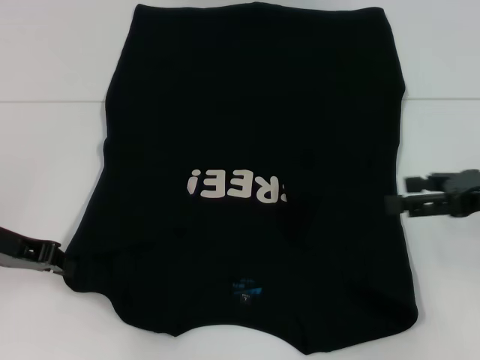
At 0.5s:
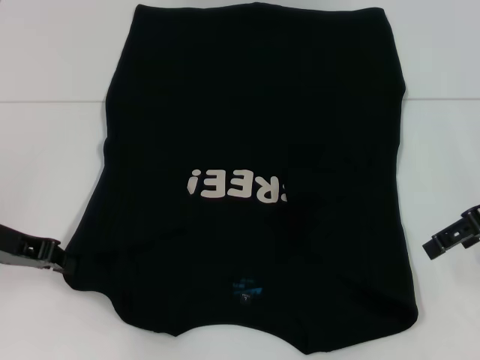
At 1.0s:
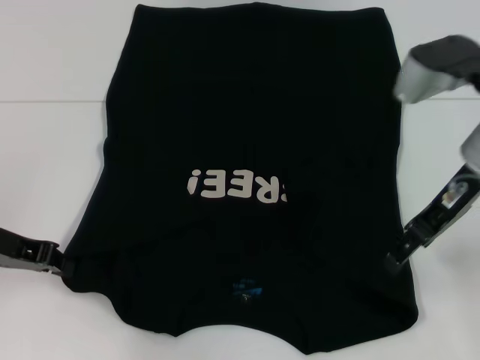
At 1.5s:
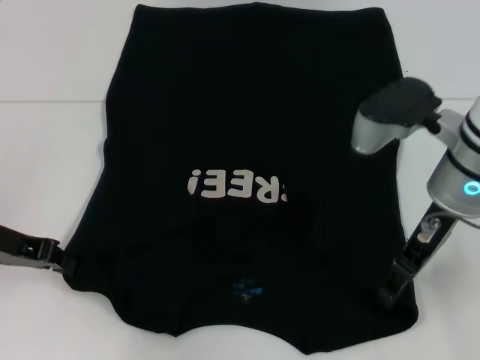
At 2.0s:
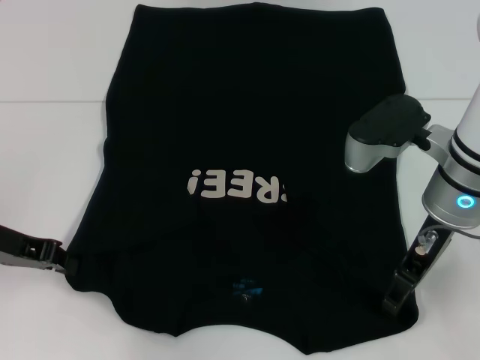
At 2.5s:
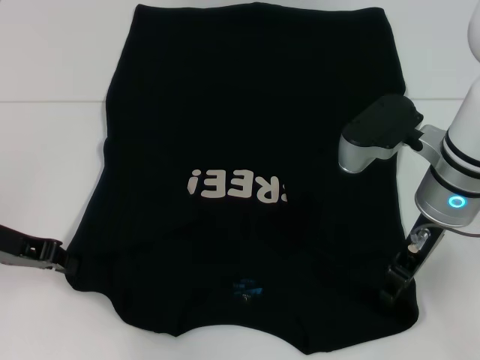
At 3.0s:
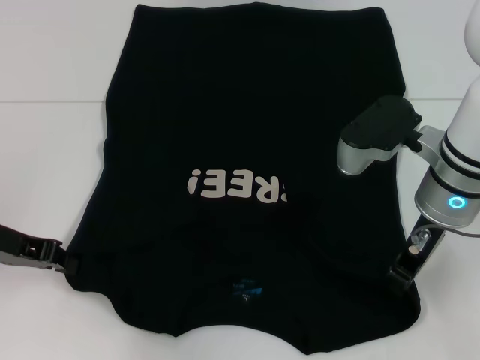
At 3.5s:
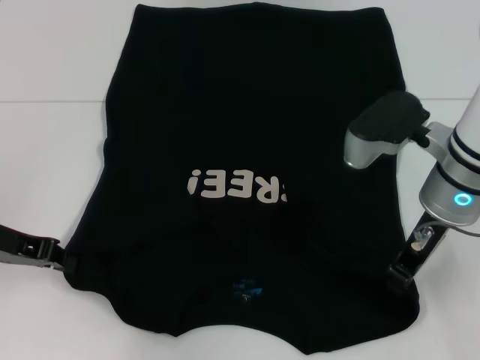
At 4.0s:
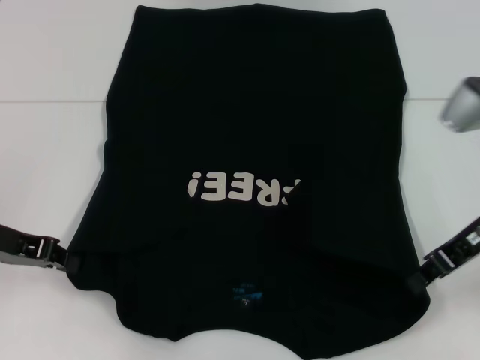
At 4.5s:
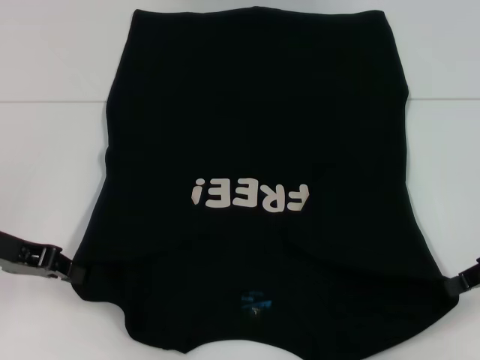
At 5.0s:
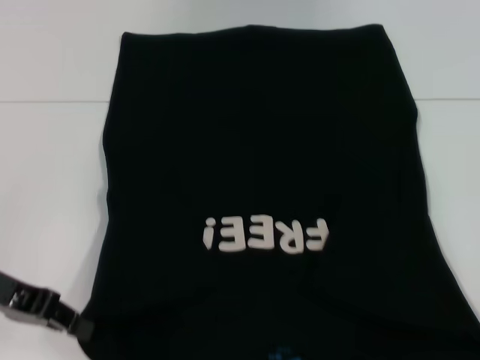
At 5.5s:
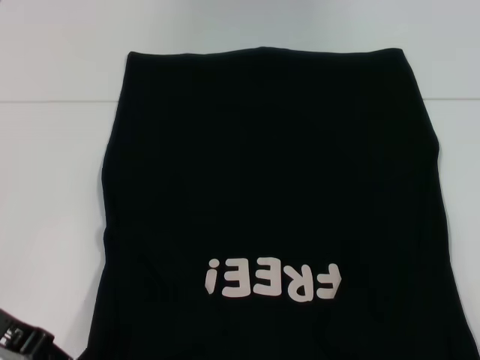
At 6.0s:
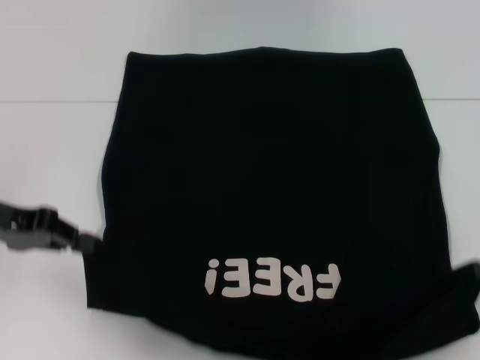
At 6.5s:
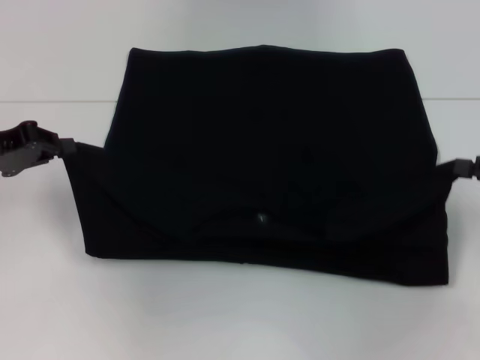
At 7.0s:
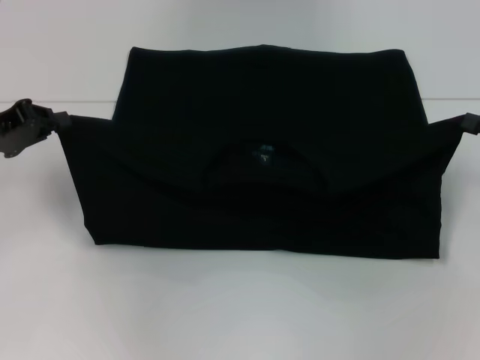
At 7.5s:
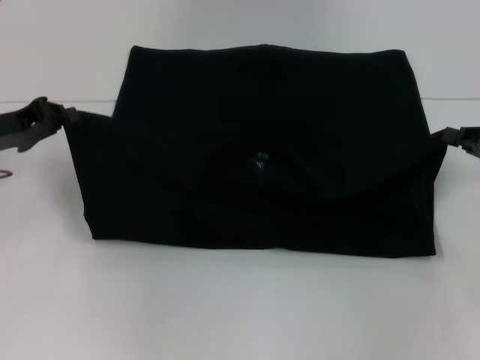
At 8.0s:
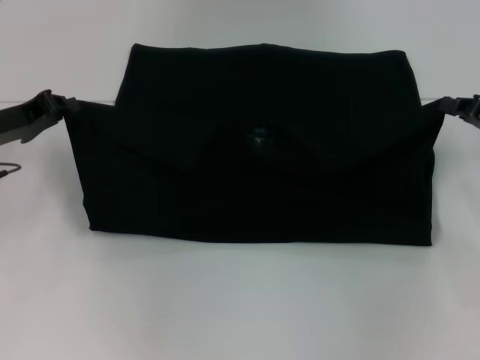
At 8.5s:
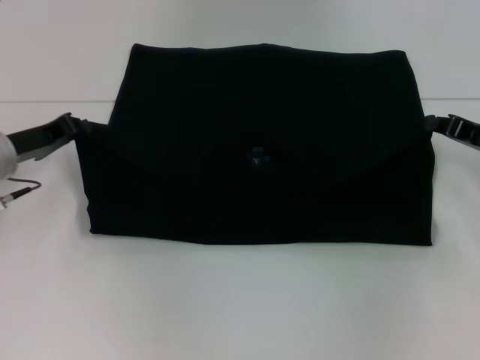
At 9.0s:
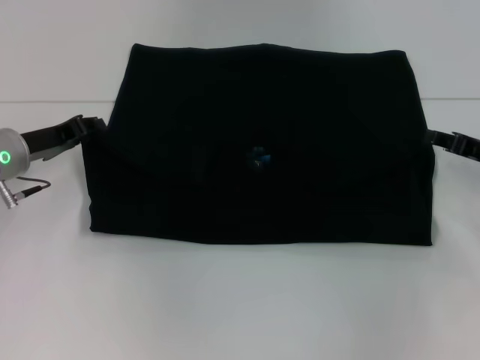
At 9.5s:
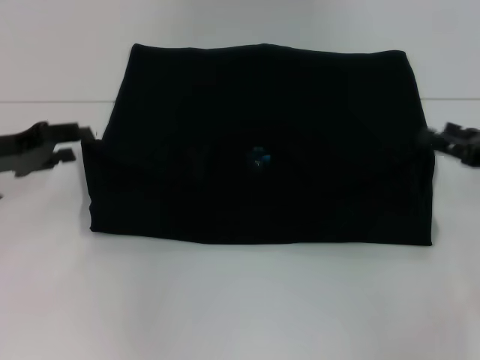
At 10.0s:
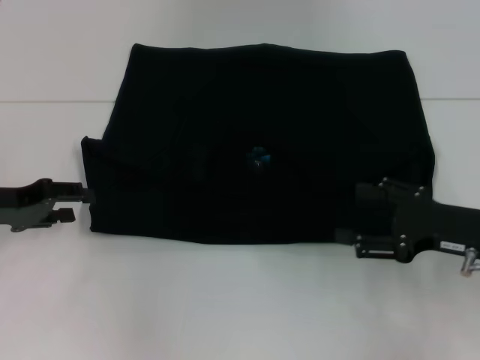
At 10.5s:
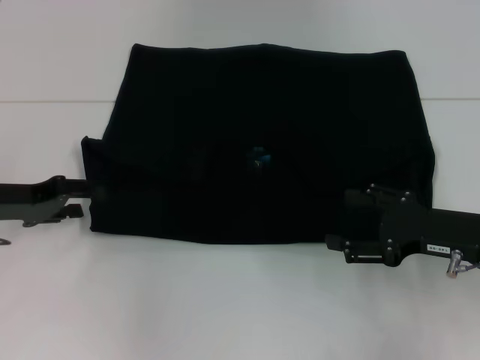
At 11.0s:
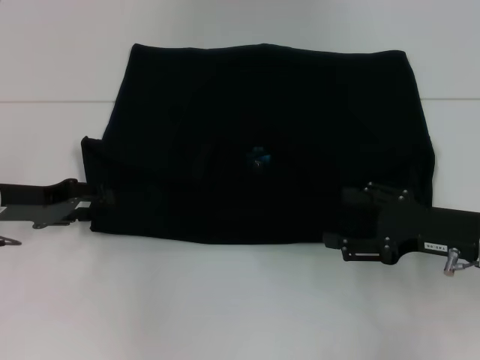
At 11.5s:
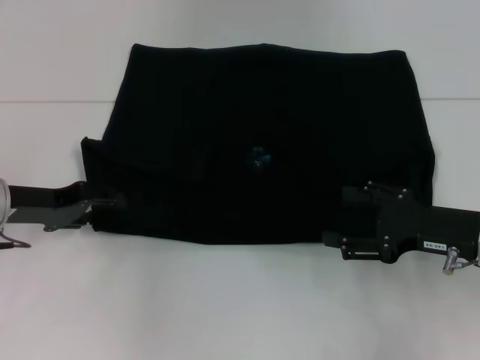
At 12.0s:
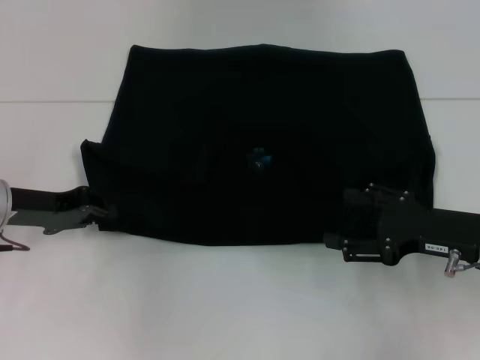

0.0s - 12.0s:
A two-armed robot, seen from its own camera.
Step, 0.0s - 4.0s: Grab the bottom right corner with your right hand.
Step, 4.5s - 9.0s: Fold the clothes with your left hand.
Step, 4.5s - 9.0s: Fold the clothes with your right hand.
0.0s - 2.0s: The right gripper goes roughly 15 cm to the left.
2.0s - 4.0s: The right gripper travels to the right by approximately 10 cm, and closes its fingers.
4.0s - 6.0s: The right gripper goes about 15 cm to the right.
6.0s - 8.0s: The two grippers go approximately 5 cm forward.
8.0s - 10.0s: The right gripper heads backward and to the left, covering about 10 cm, and opens its fingers; the left gripper shifts by some 5 cm, and opens up.
10.0s - 12.0s: The grippers stay close to where they were, moving slightly.

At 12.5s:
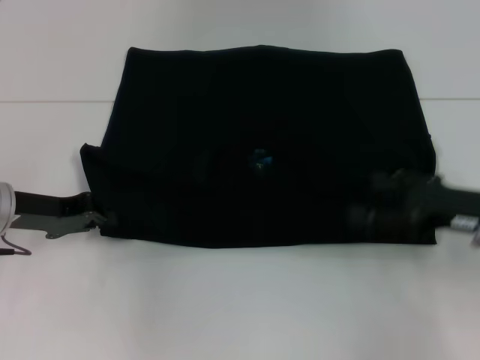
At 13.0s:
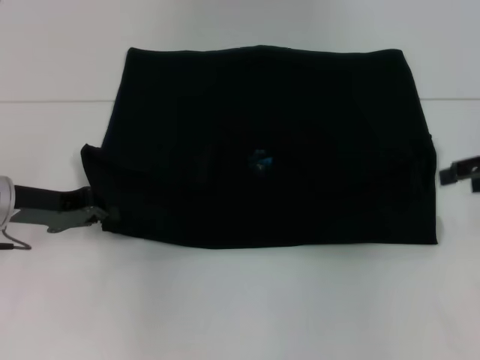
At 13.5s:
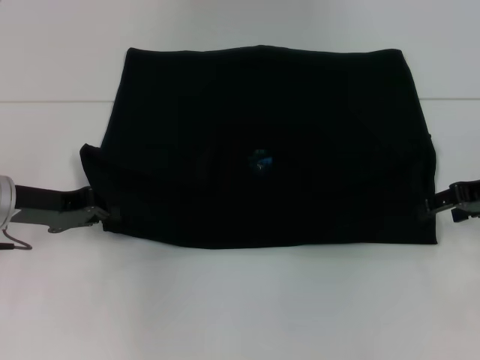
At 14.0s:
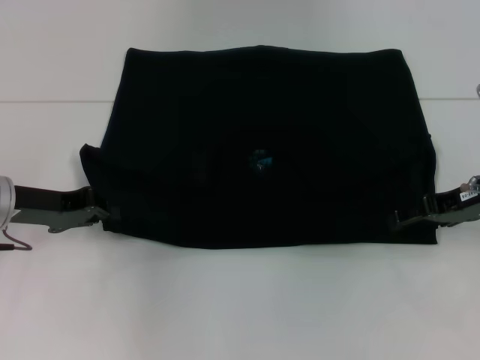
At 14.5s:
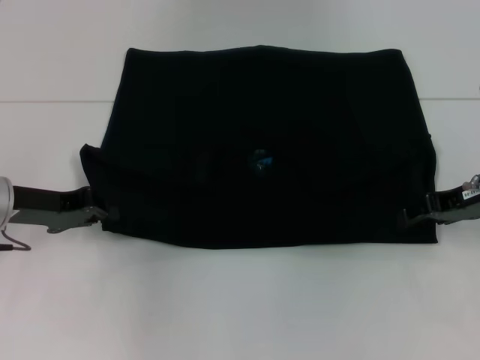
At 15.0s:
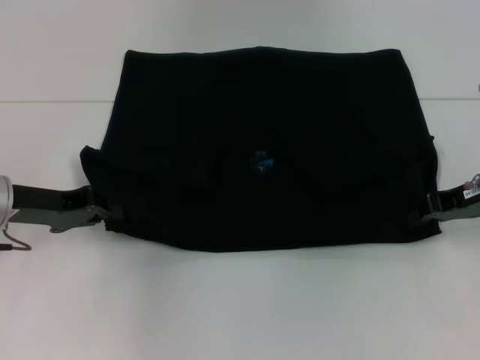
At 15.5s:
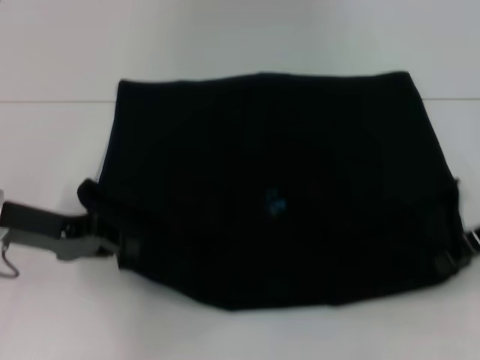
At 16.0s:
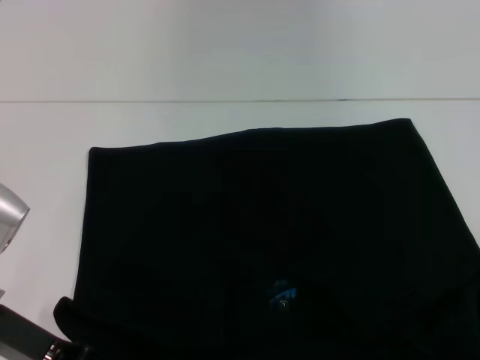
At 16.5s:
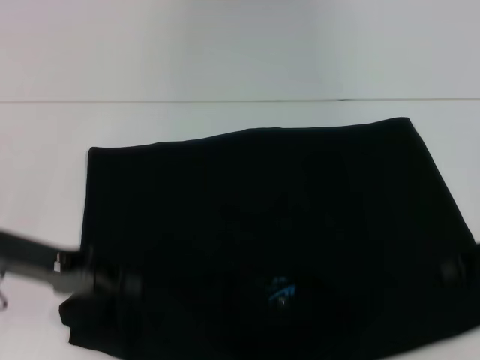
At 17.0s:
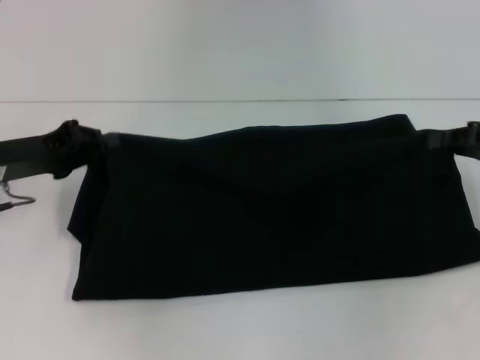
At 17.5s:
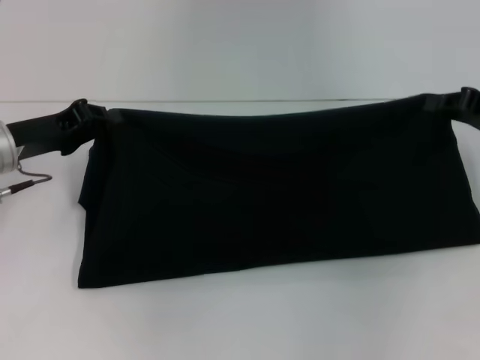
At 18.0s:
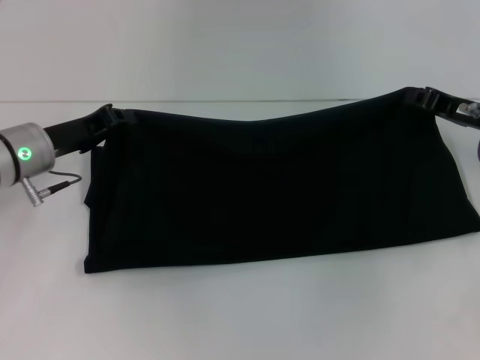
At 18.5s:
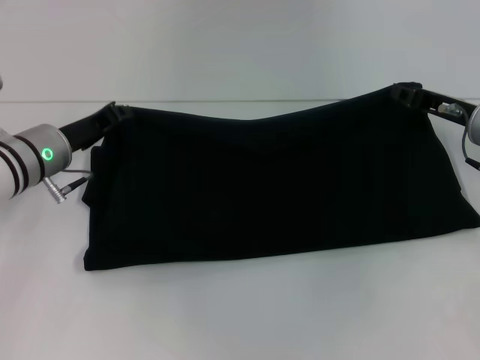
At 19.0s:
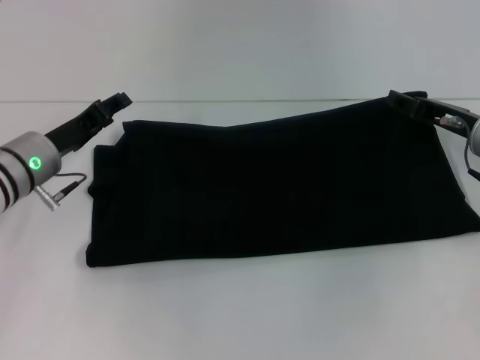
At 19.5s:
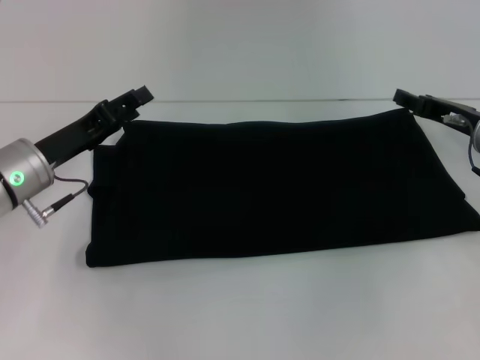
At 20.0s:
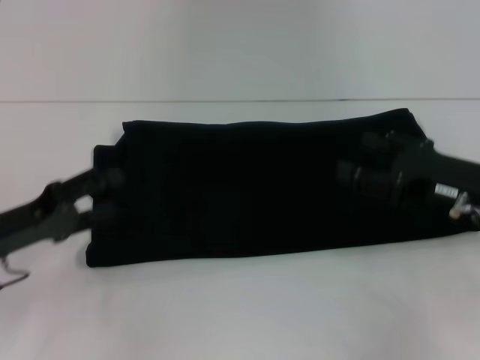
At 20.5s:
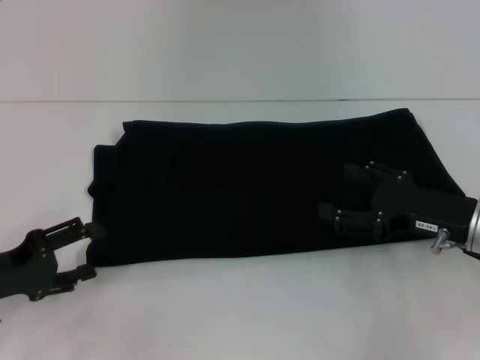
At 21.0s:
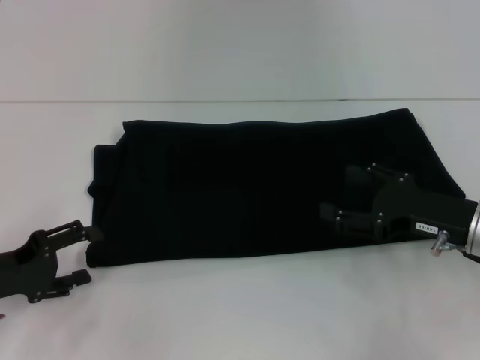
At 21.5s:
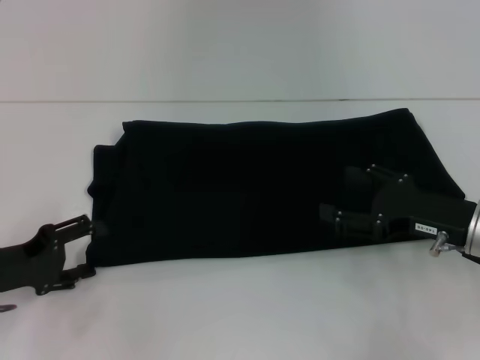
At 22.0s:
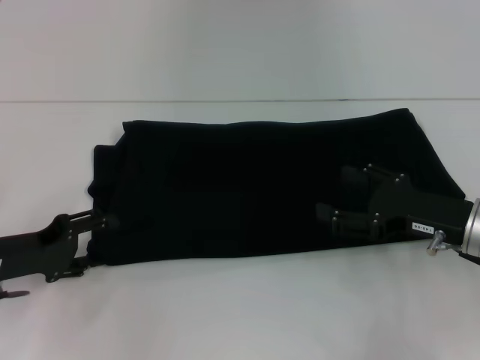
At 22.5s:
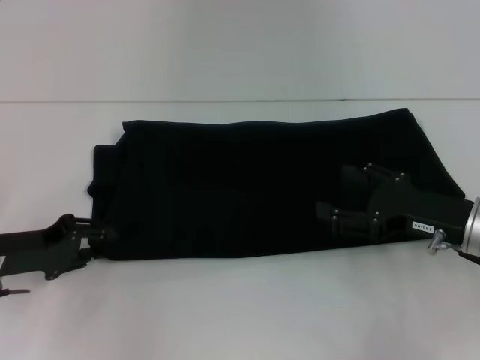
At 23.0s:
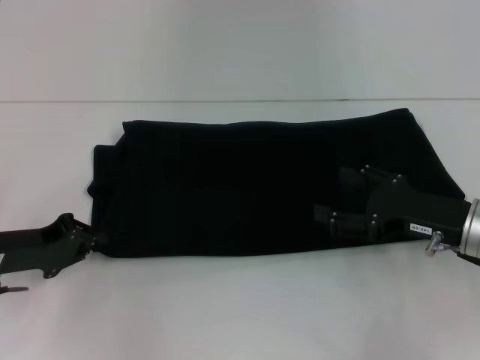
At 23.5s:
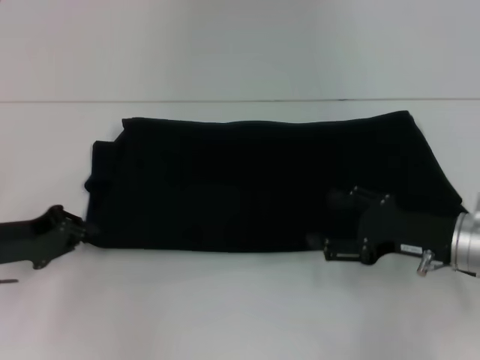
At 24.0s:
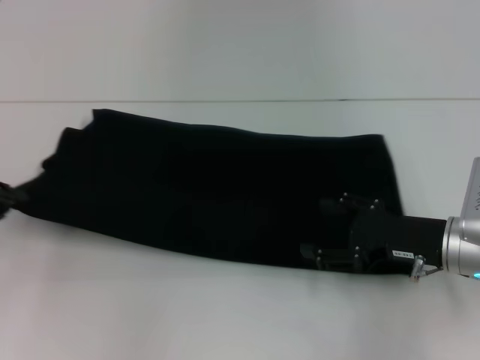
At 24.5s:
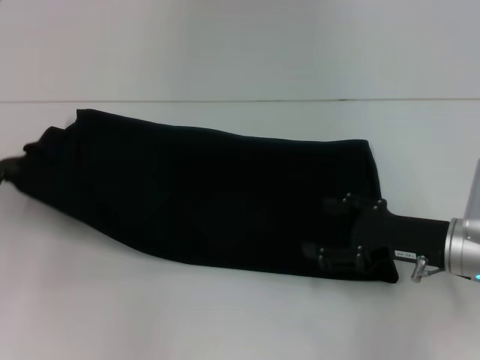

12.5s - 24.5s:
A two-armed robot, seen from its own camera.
Step, 12.5s - 15.5s: Pull the clothes with your left hand.
Step, 12.5s - 15.5s: Pull the clothes with your right hand.
Step, 16.0s - 19.0s: Fold the clothes with your right hand.
12.5s - 14.5s: The right gripper is displaced forward by approximately 5 cm, and reaches roughly 10 cm upward, then returns.
14.5s - 16.5s: The right gripper moves backward, about 5 cm, and closes.
16.5s - 18.5s: The left gripper moves forward, roughly 10 cm, while the right gripper heads forward and to the left, covering some 10 cm.
18.5s - 20.5s: The left gripper travels backward and to the left by some 15 cm, and opens; the right gripper shifts roughly 10 cm backward, and opens.
20.5s - 22.5s: The left gripper changes place by approximately 5 cm.
22.5s - 24.5s: The left gripper moves to the left and upward, about 10 cm, and closes.

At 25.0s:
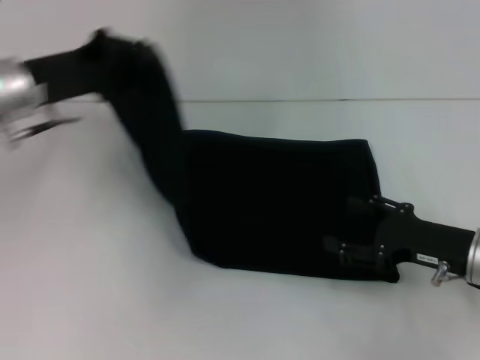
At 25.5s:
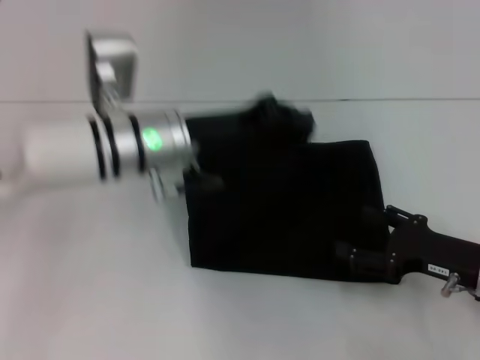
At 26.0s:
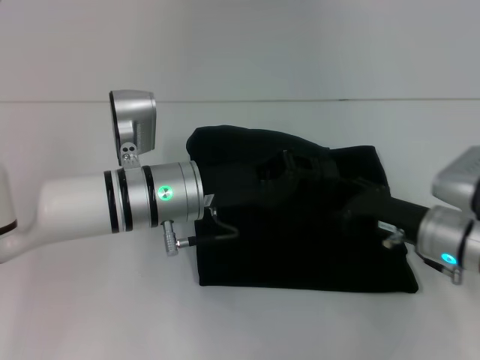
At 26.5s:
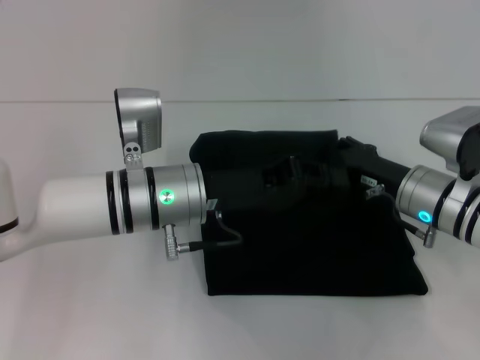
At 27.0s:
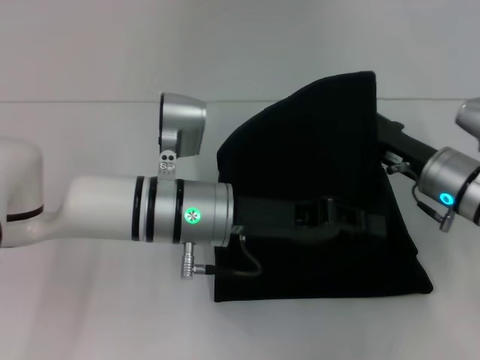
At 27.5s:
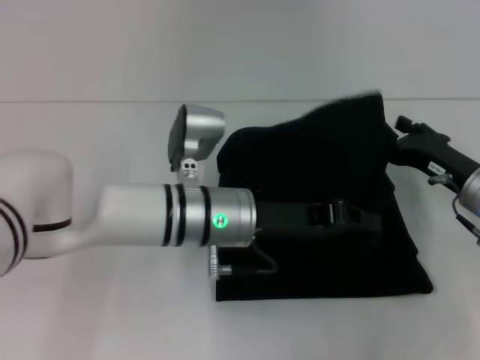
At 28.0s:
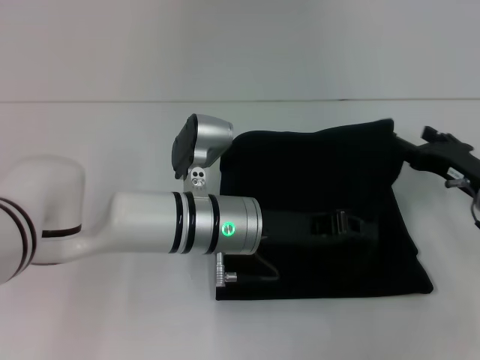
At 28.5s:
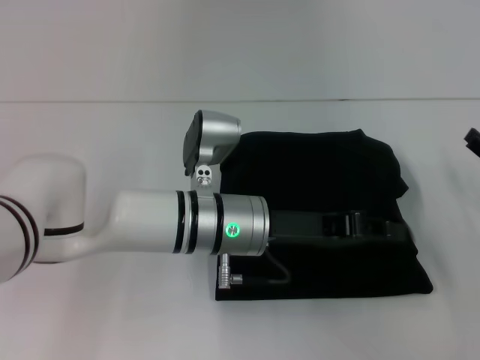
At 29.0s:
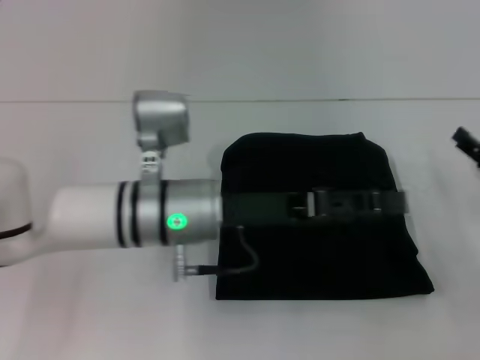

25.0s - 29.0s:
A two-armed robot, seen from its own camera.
25.0s - 27.0s: The left gripper is displaced to the right and backward by some 20 cm. The right gripper is displaced forward by some 5 cm.
27.0s - 29.0s: The left gripper opens its fingers, while the right gripper shifts about 10 cm to the right.
